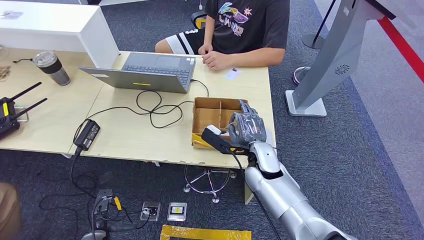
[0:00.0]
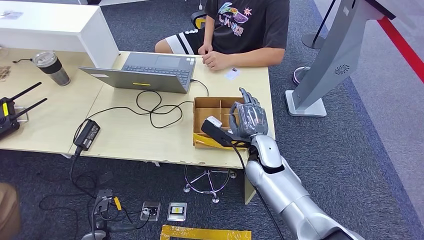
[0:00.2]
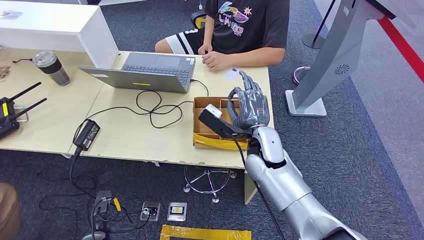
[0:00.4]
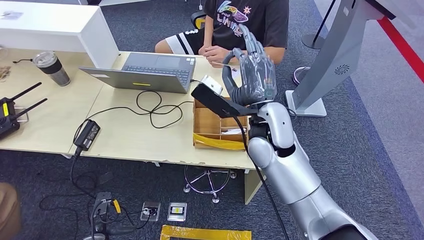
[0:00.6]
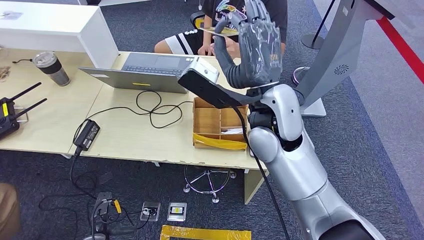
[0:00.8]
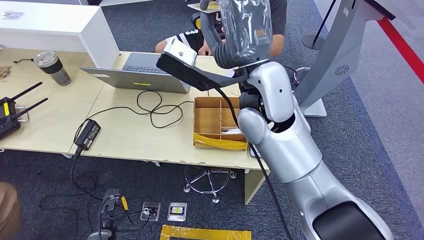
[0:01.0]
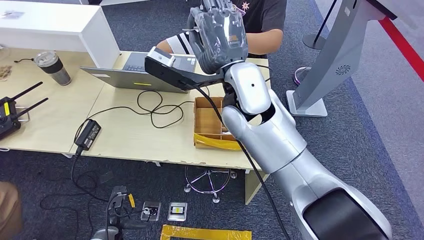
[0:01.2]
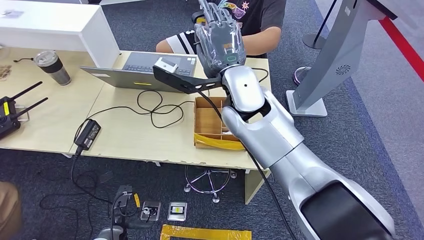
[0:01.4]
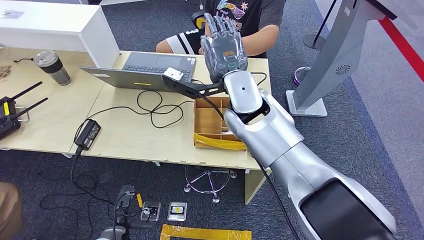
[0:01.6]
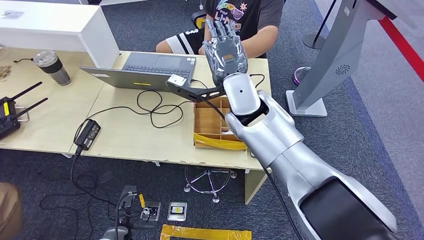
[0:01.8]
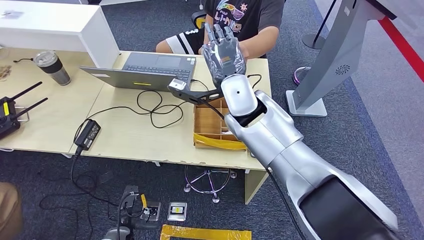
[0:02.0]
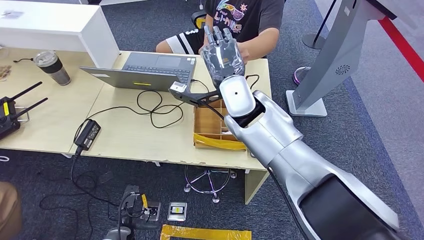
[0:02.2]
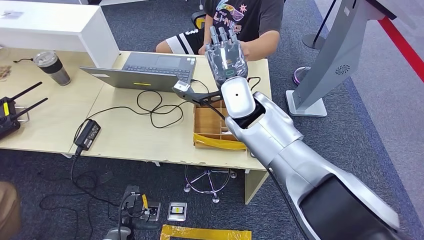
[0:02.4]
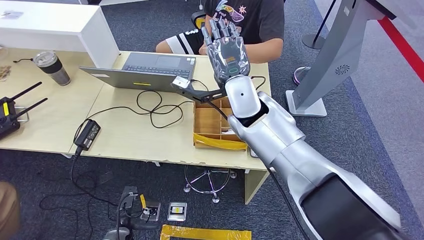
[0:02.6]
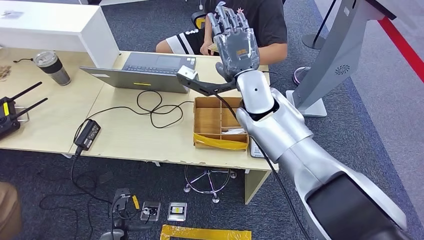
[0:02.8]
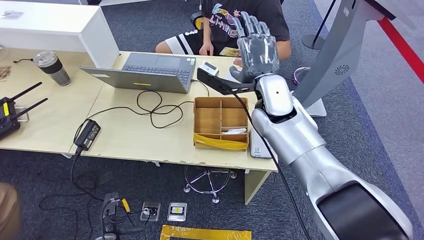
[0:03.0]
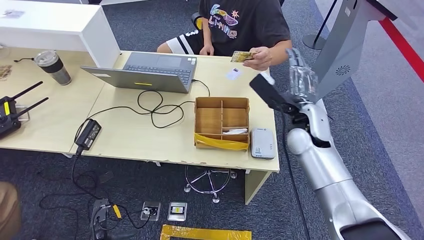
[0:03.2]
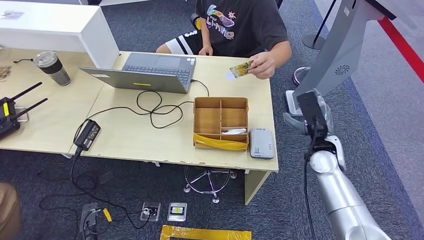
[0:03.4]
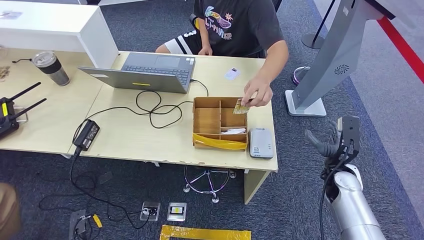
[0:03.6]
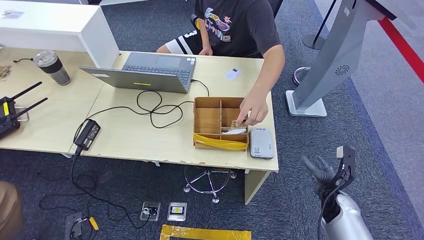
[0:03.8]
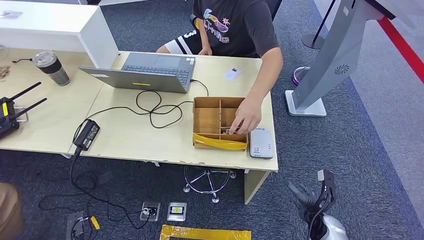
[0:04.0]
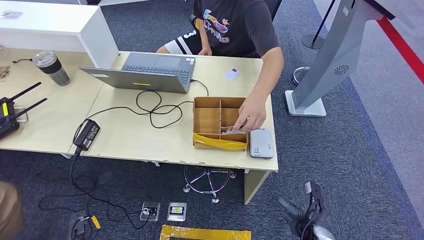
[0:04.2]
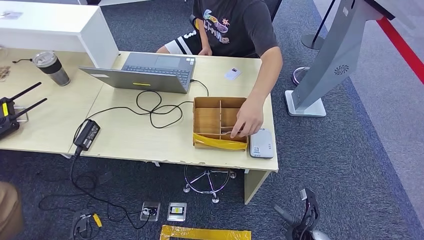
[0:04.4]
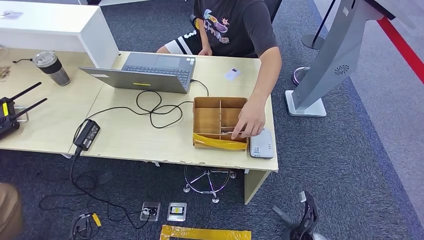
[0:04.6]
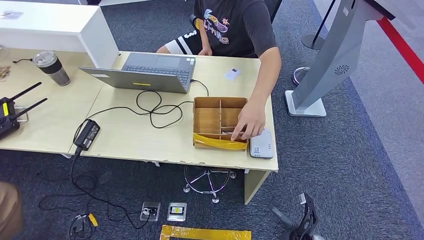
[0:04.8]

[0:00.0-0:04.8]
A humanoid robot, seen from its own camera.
Step, 0:01.2 to 0:04.8: Hand the room key to the person.
0:00.0 to 0:01.6: The right hand goes approximately 20 cm upward. Meanwhile the left hand heads to the right, covering some 5 cm.
0:01.6 to 0:03.2: The left hand changes place by about 5 cm. Meanwhile the right hand shifts some 20 cm to the right and downward.
0:03.2 to 0:04.8: The left hand heads to the left, covering approximately 5 cm. Meanwhile the right hand shifts about 40 cm downward and backward.

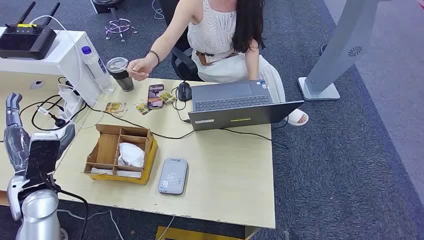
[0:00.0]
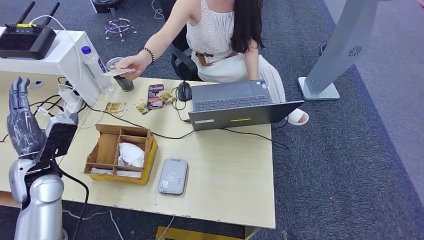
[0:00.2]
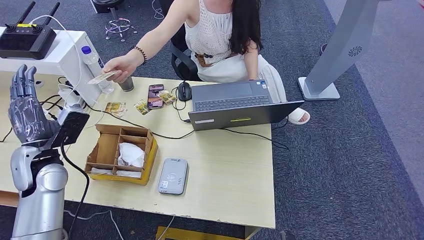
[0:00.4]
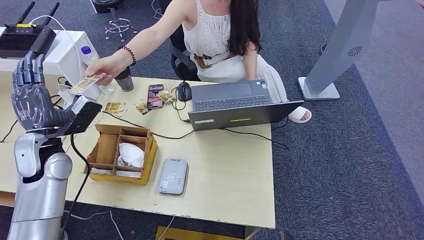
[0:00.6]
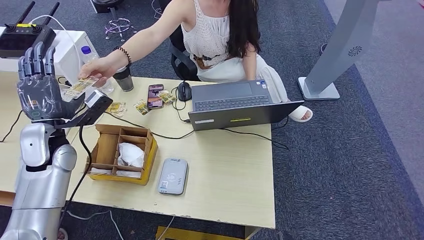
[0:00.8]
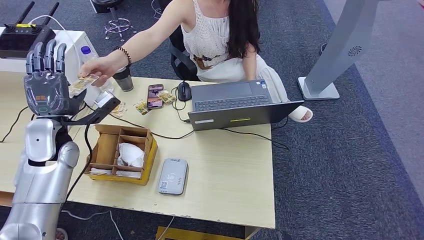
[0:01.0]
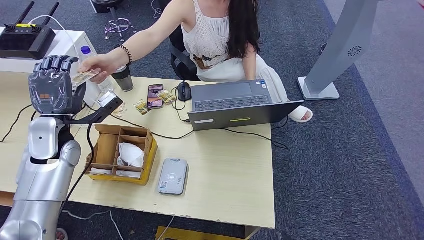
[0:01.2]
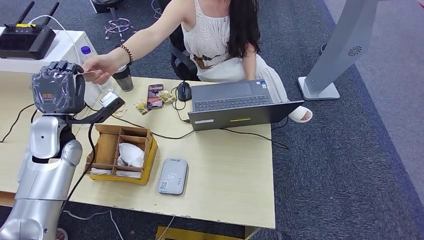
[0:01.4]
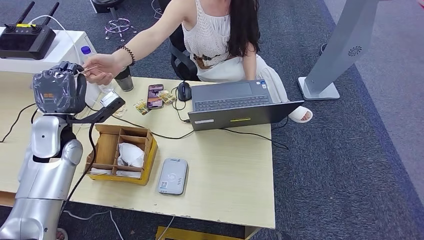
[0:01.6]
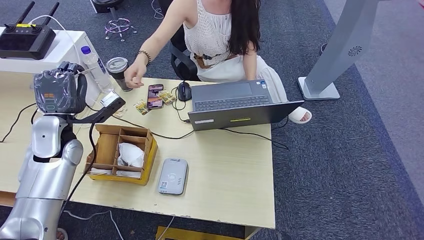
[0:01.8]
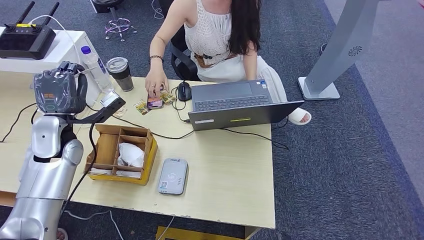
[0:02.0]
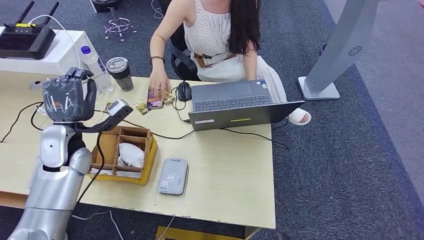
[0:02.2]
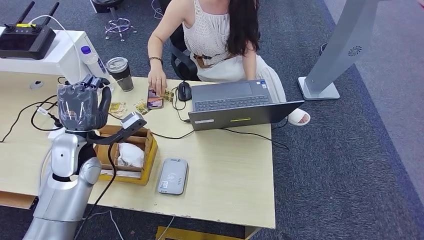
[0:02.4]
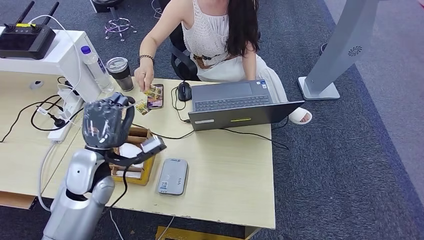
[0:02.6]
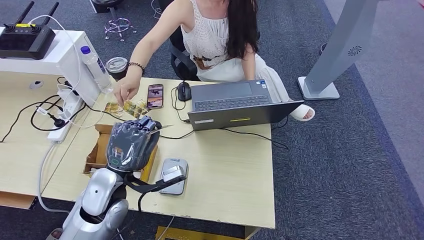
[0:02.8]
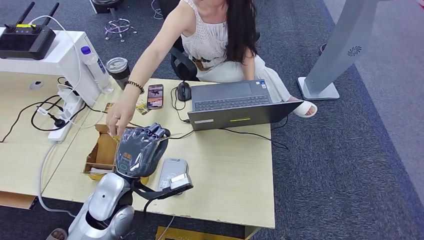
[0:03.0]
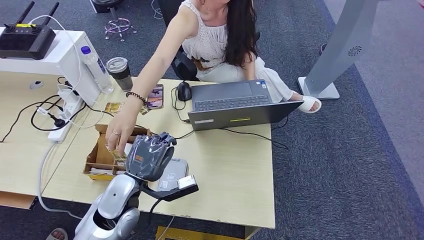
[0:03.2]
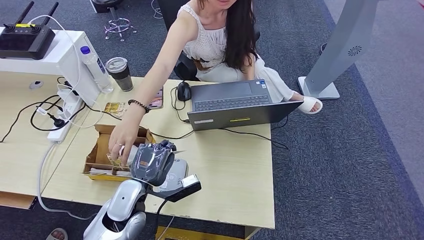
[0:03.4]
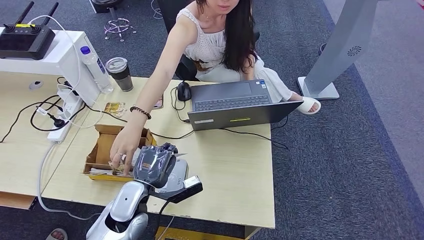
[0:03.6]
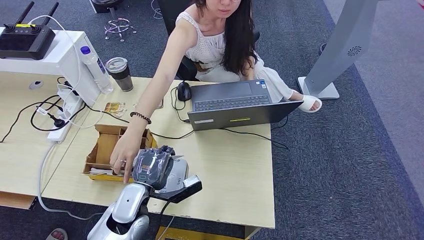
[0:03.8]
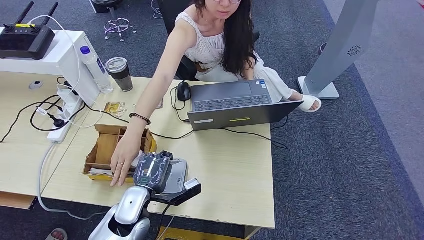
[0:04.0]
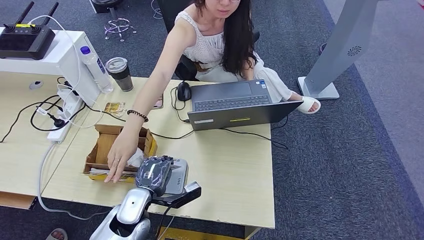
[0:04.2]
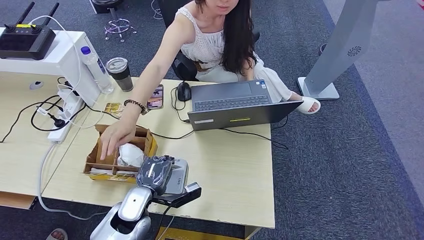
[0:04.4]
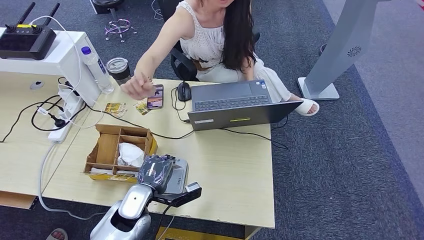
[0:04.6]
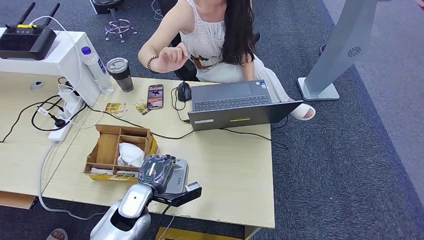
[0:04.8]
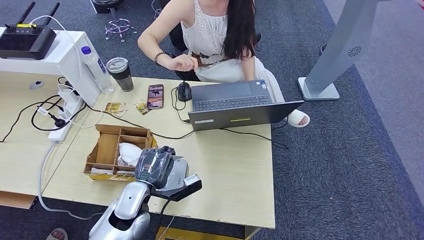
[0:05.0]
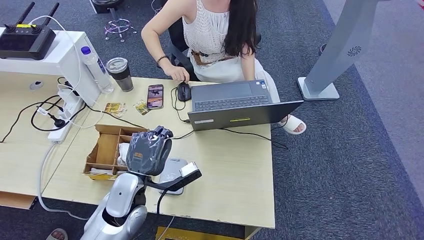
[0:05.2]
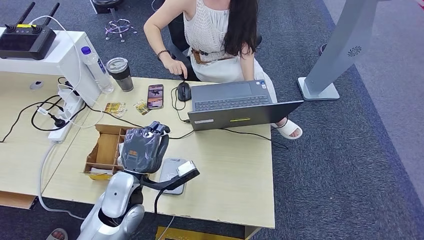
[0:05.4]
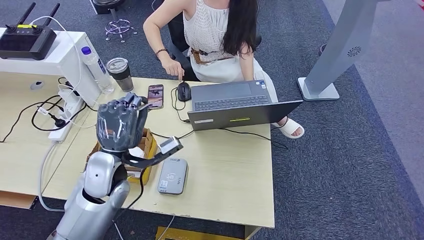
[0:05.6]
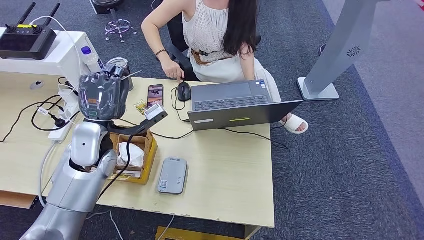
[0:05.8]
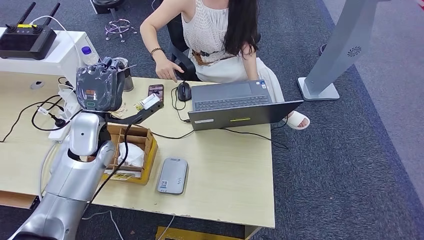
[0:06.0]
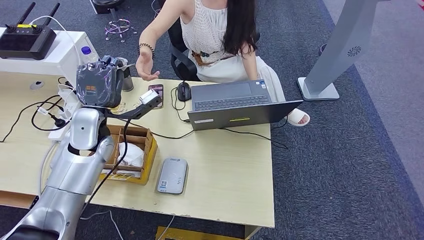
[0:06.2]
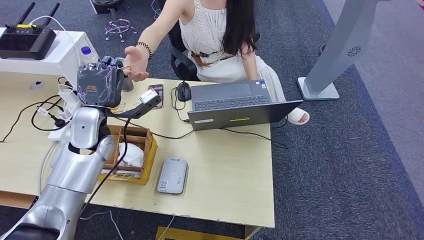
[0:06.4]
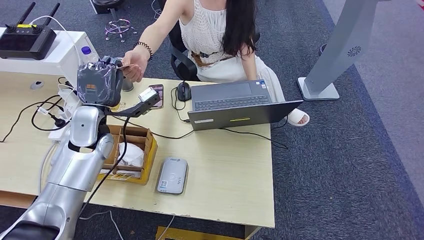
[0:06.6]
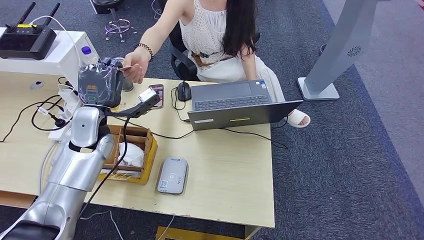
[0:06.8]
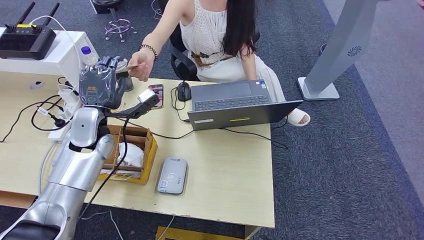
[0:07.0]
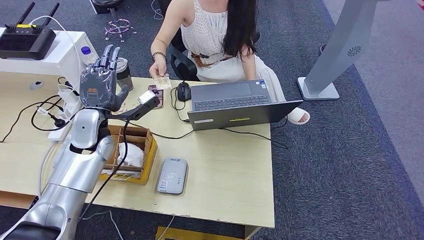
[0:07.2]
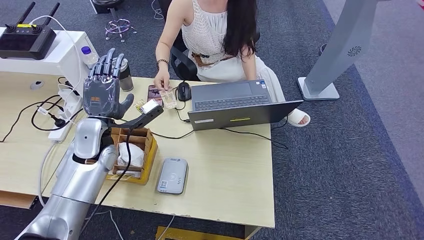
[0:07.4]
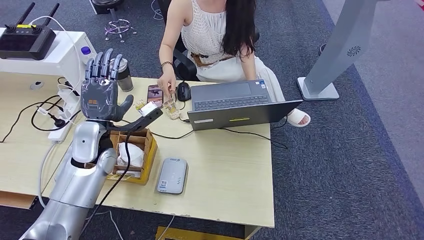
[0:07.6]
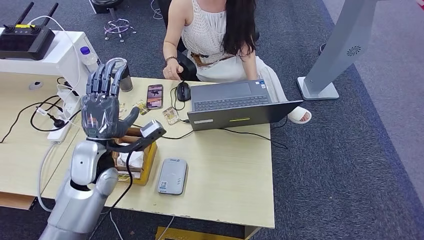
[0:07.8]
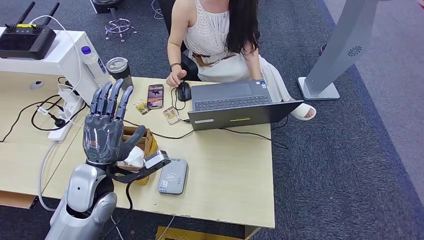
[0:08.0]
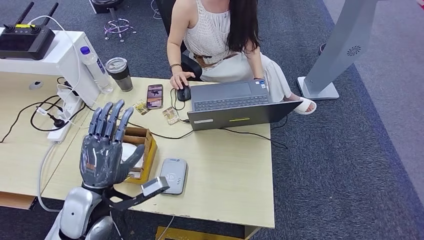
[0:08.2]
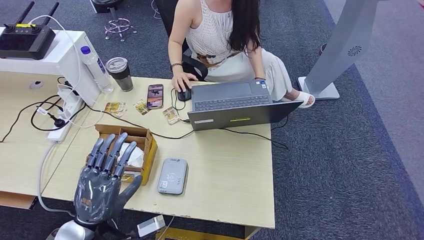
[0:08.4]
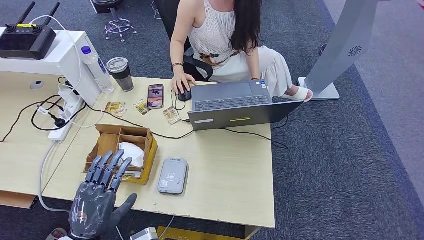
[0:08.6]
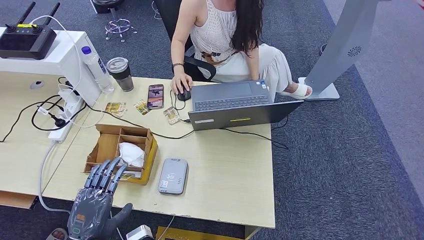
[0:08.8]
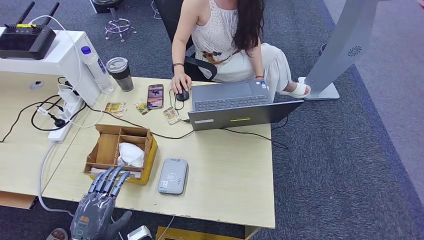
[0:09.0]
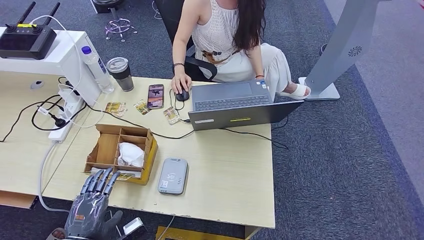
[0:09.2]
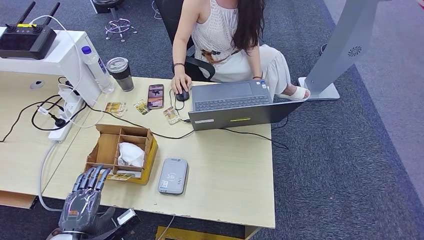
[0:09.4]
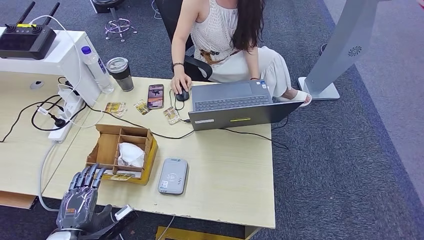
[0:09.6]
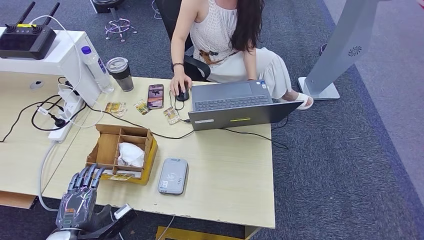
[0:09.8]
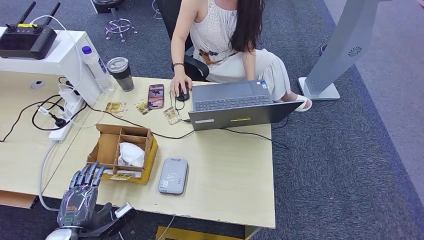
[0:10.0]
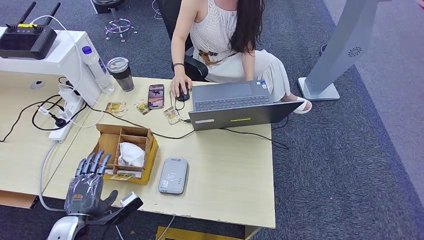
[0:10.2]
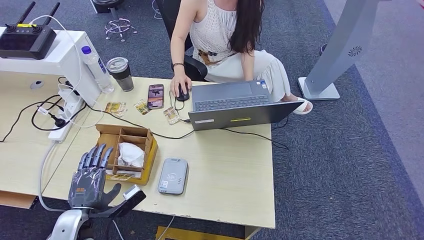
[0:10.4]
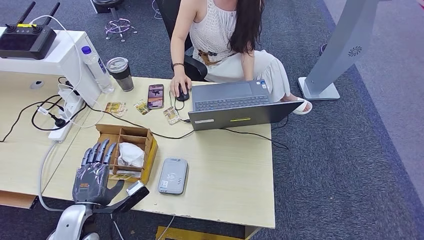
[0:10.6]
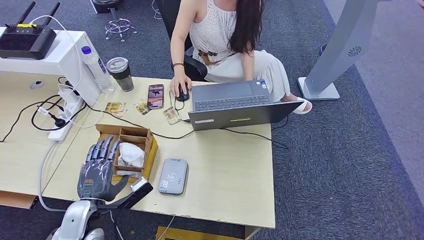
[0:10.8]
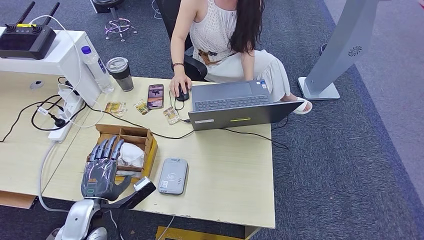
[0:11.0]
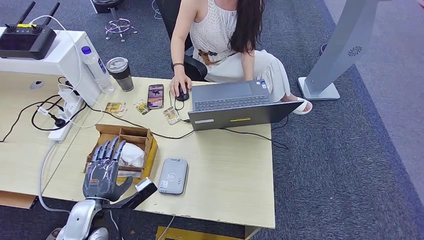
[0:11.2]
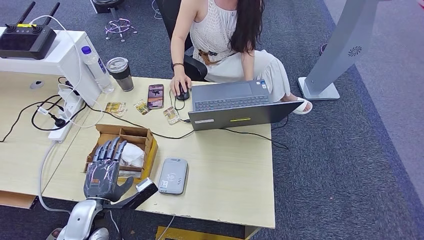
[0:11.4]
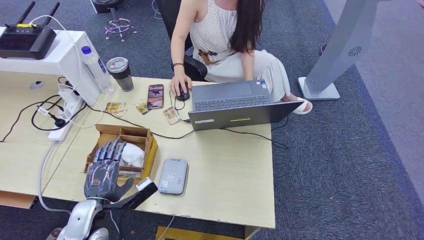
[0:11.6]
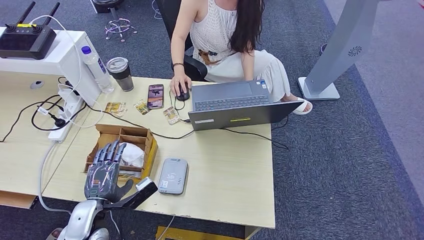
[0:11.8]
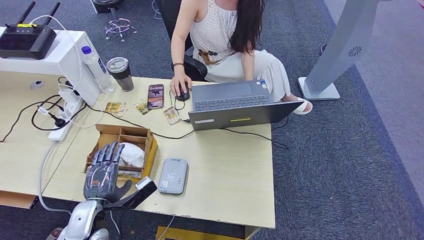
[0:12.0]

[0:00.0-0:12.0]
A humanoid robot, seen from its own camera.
Step, 0:00.0 to 0:01.8: Take the ID card from the person's hand.
Step, 0:02.0 to 0:05.2: Place the ID card on the card reader.
Step, 0:05.4 to 0:07.6: Hand the ID card to the person.
0:03.0 to 0:04.4: The left hand shifts about 10 cm downward.
0:06.0 to 0:07.6: There are only small adjustments of the hands.
0:07.6 to 0:09.0: The left hand travels backward and downward by approximately 30 cm.
0:09.0 to 0:10.4: The left hand shifts approximately 5 cm forward.
0:10.4 to 0:12.0: The hands stay close to where they were, moving slightly.
